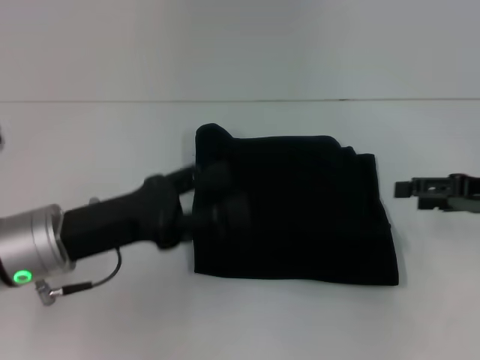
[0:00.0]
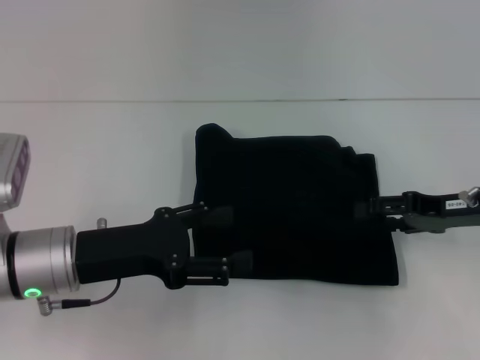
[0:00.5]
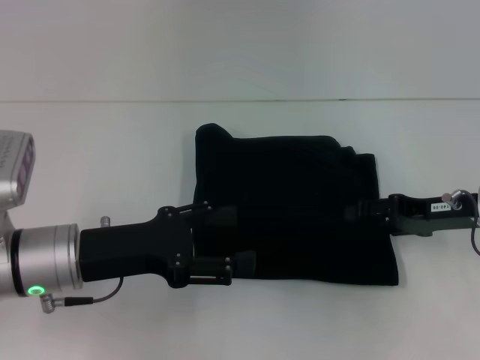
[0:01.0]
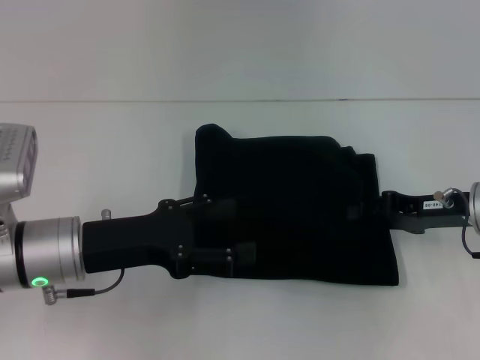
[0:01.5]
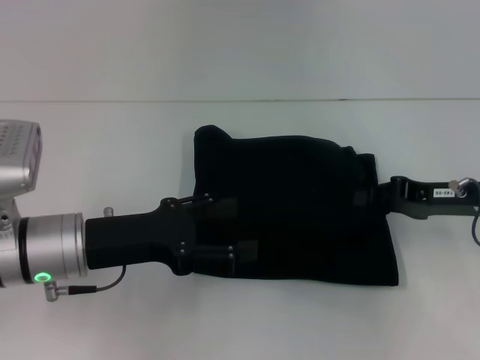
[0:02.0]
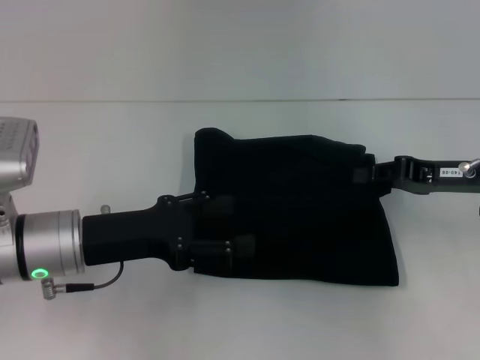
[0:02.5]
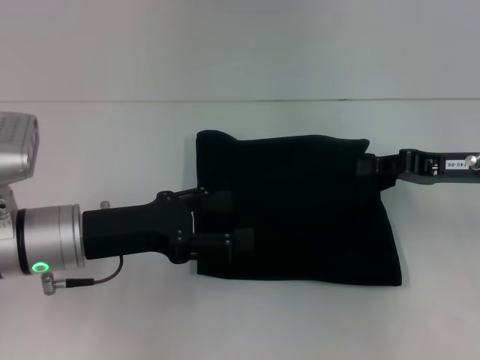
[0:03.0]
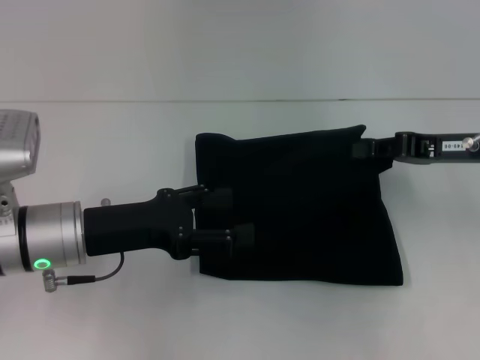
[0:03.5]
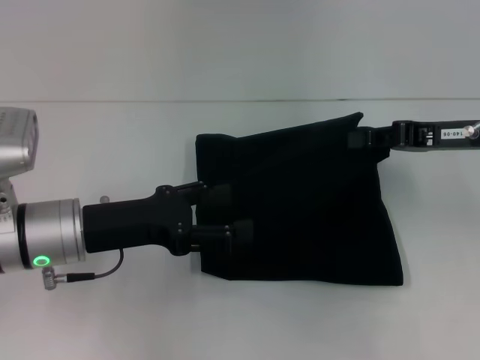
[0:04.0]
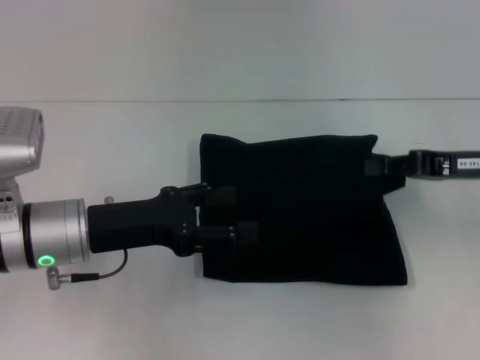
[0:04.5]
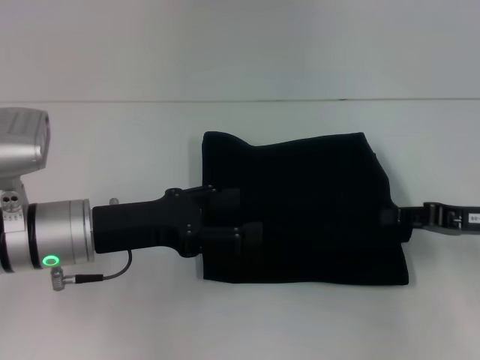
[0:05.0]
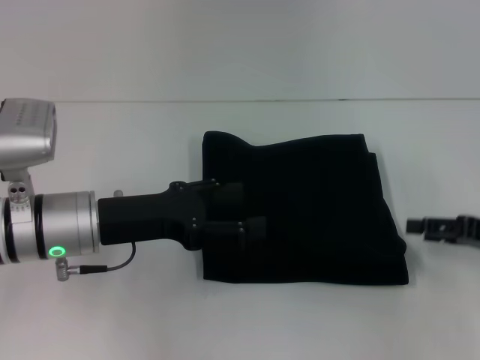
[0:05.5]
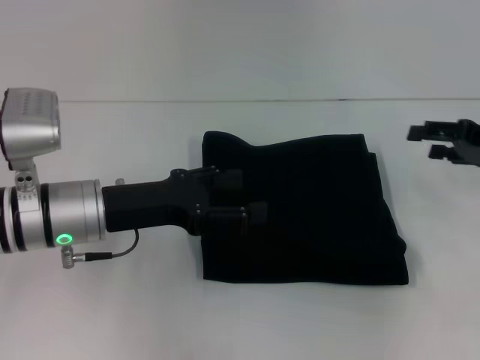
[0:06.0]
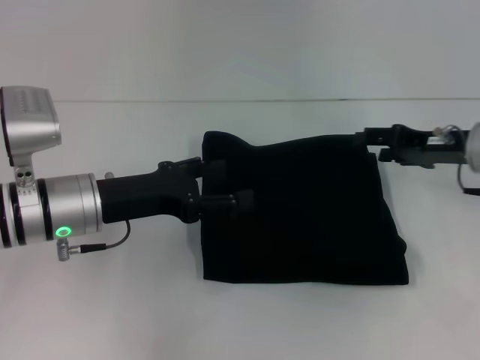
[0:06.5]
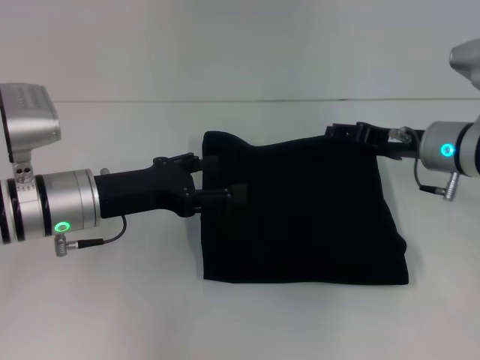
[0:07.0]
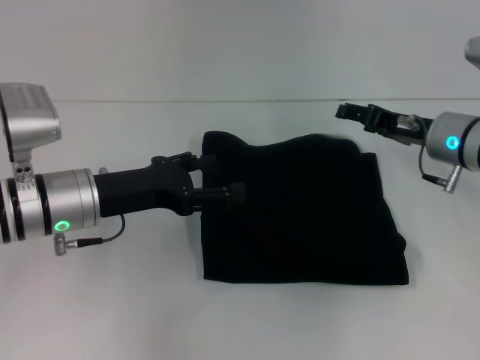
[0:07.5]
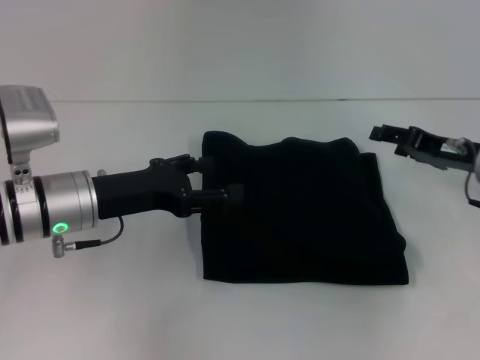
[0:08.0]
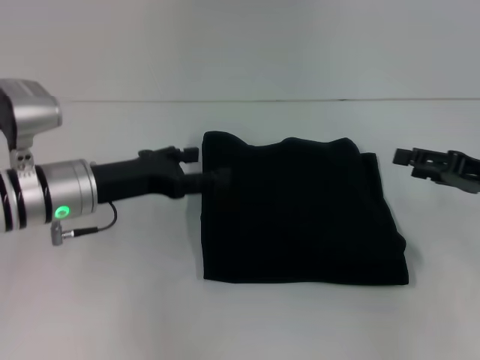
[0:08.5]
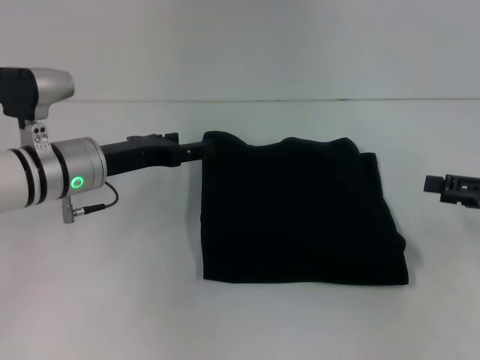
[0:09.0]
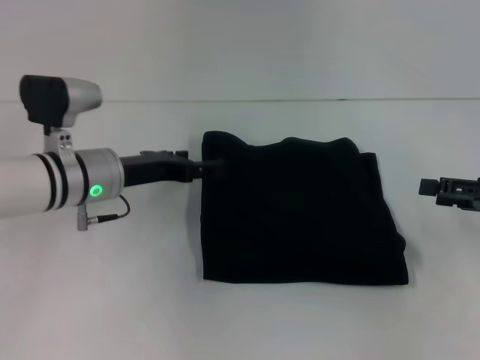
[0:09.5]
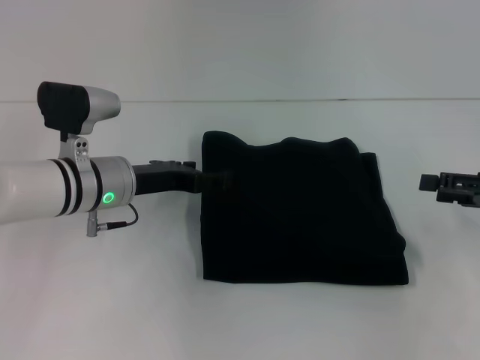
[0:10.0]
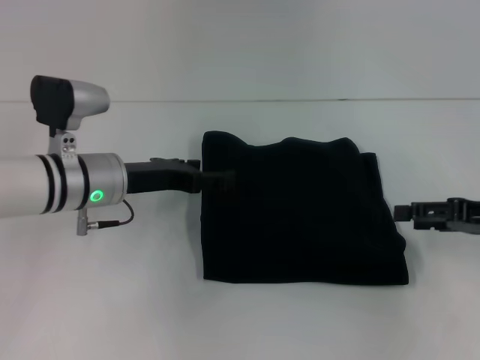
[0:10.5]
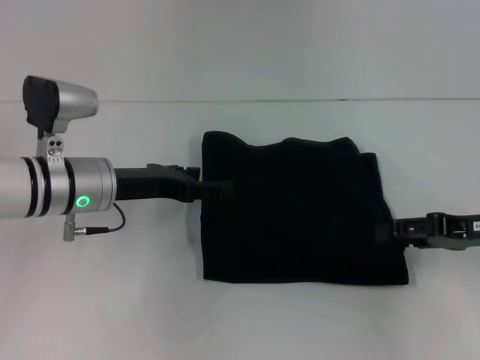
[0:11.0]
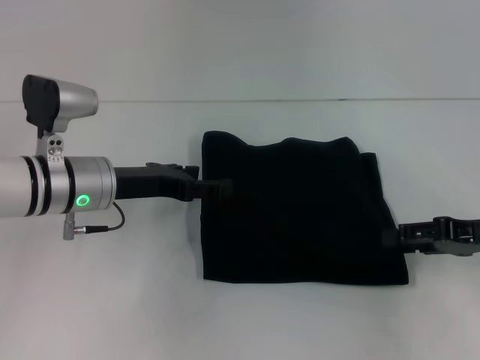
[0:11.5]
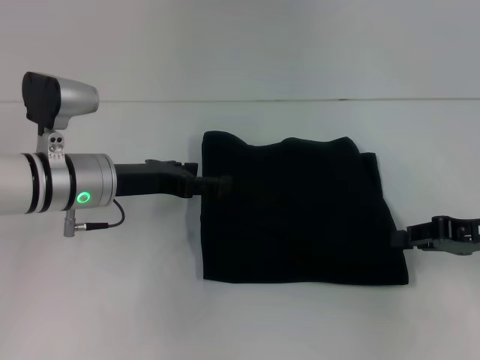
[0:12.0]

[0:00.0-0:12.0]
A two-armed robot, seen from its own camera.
0:00.0 to 0:02.0: The right gripper heads to the left, covering about 5 cm, and closes.
0:02.0 to 0:04.0: The right gripper is displaced upward by about 5 cm.
0:04.0 to 0:06.0: The right gripper goes roughly 5 cm to the right, and opens up.
0:06.0 to 0:08.0: The right gripper travels to the left by about 5 cm.
0:08.0 to 0:10.0: The left gripper moves about 5 cm; the right gripper is displaced to the right and backward by some 10 cm.
0:10.0 to 0:12.0: The right gripper closes.

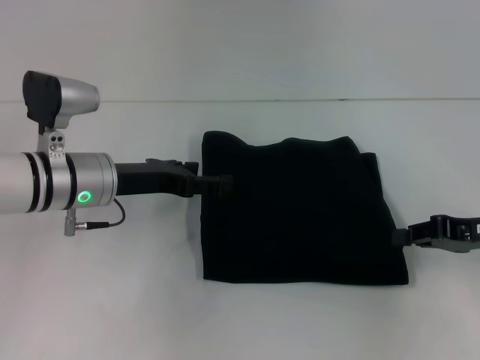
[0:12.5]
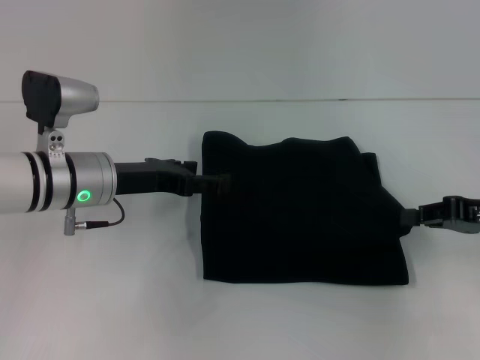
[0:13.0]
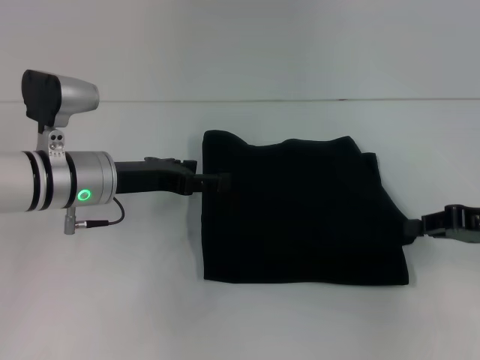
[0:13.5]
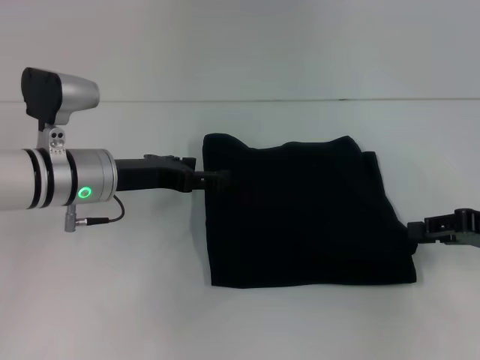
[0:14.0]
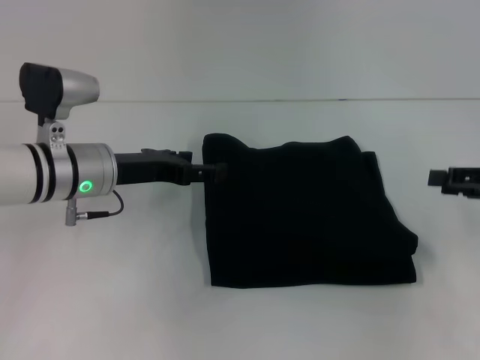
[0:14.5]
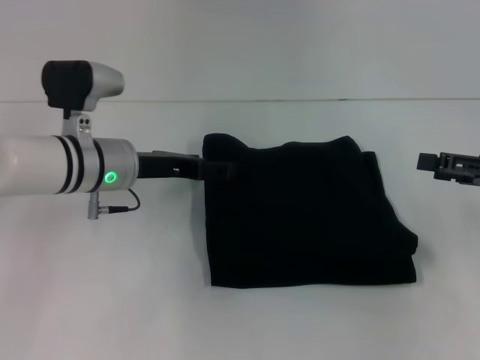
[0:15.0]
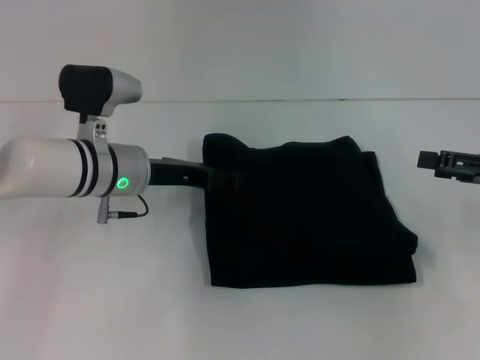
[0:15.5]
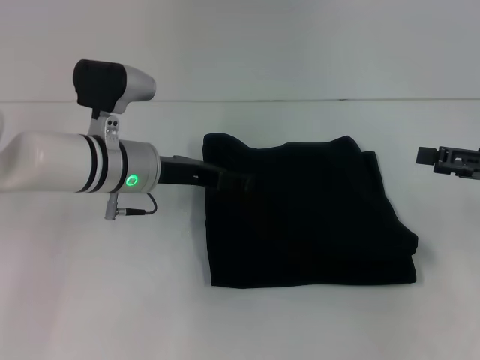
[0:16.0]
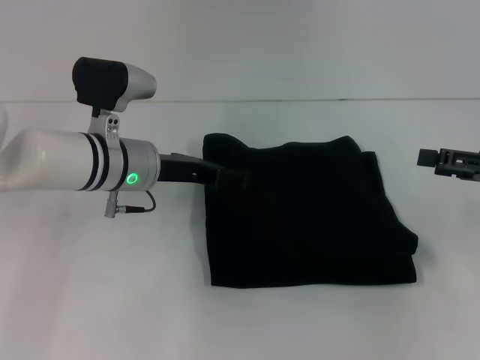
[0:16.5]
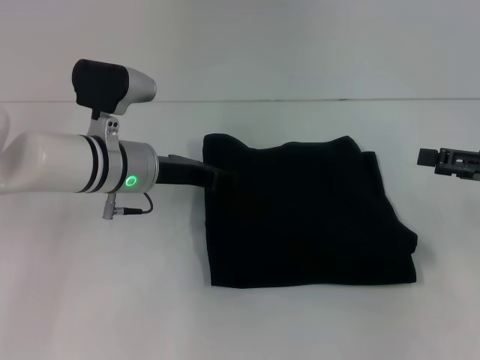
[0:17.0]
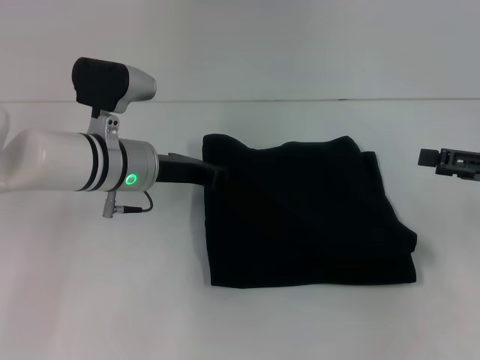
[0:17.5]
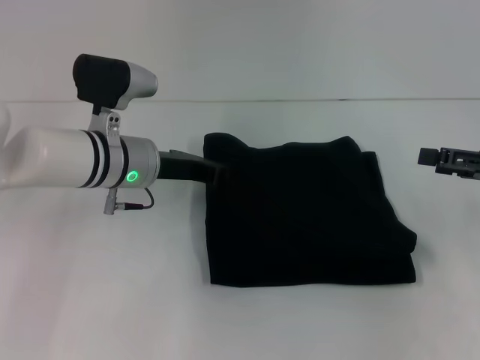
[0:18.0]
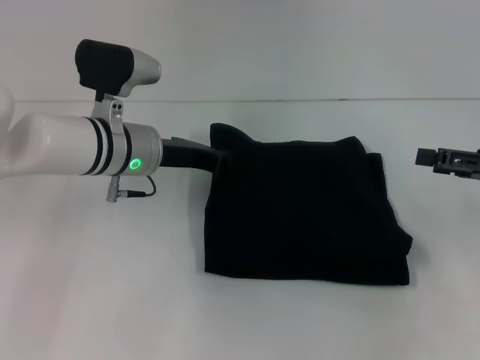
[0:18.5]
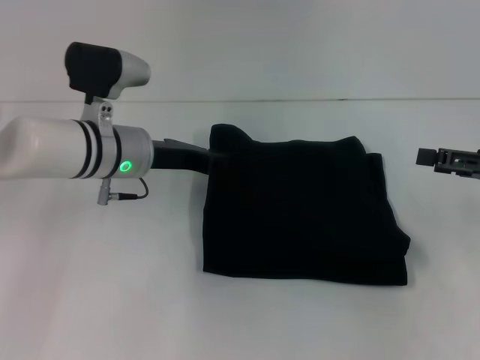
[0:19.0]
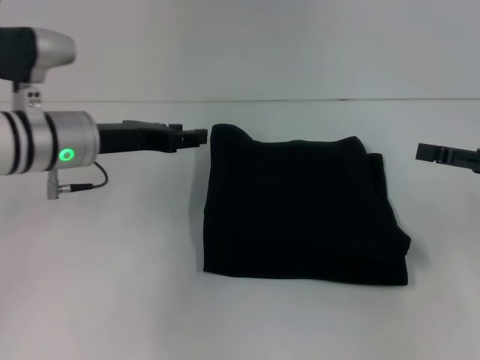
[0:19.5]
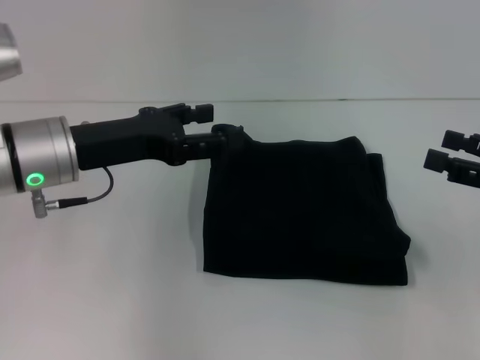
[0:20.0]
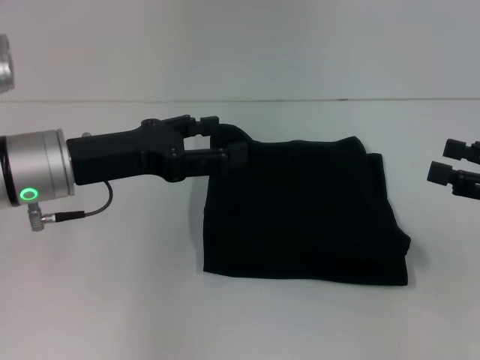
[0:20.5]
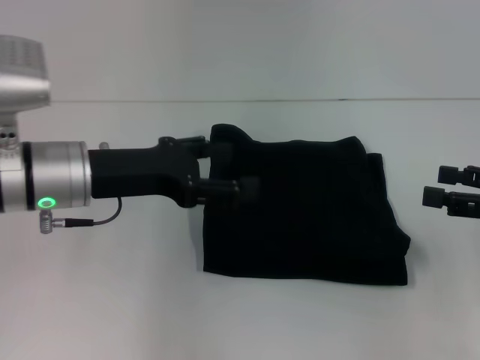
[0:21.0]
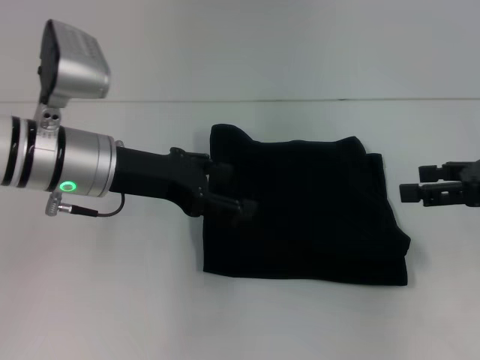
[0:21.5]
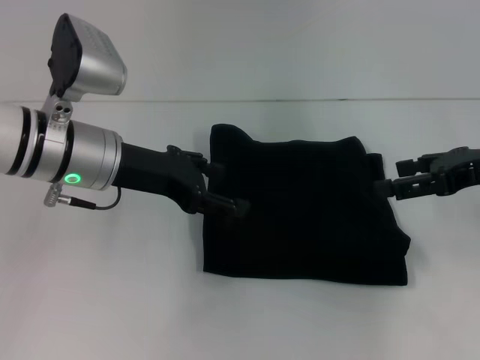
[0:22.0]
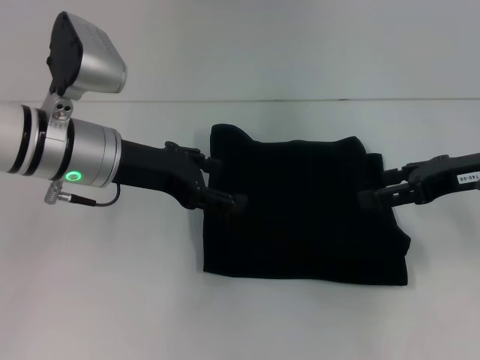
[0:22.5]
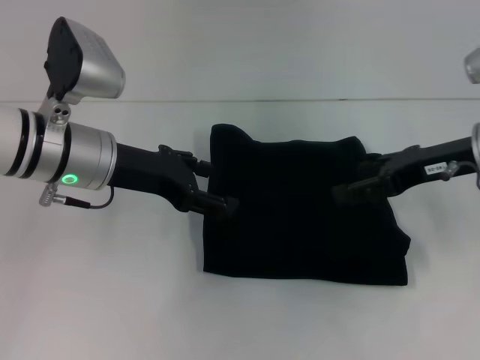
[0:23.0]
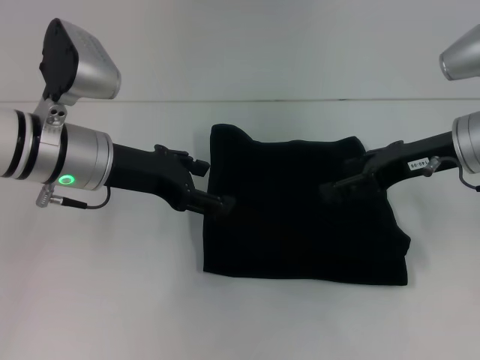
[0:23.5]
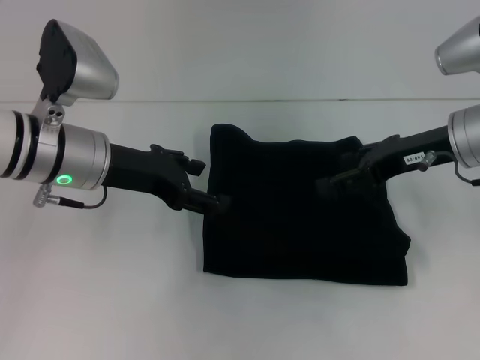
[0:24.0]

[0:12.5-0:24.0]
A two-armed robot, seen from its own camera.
0:12.5 to 0:14.5: The right gripper moves approximately 5 cm, and opens.
0:14.5 to 0:16.5: The grippers make only small movements.
0:16.5 to 0:18.5: The left gripper closes its fingers.
0:18.5 to 0:20.0: The left gripper travels backward, to the left and upward by about 10 cm, and opens its fingers.
0:20.0 to 0:22.0: The right gripper is displaced forward by some 5 cm.
0:22.0 to 0:24.0: The right gripper is displaced to the left by some 5 cm.

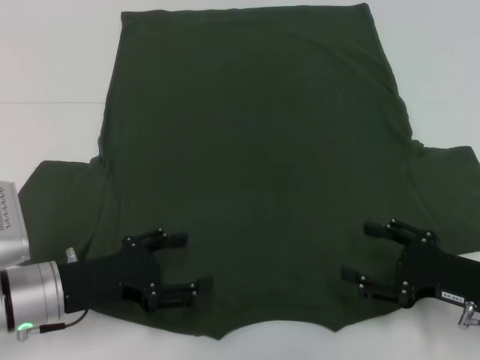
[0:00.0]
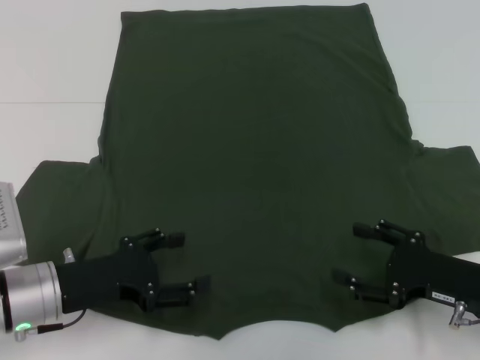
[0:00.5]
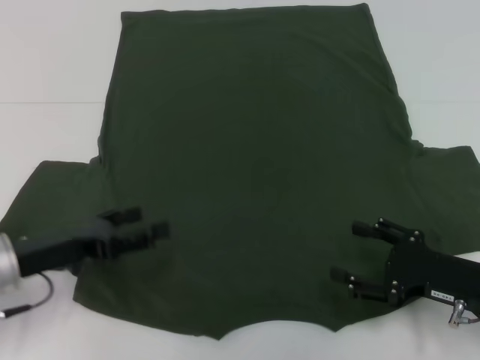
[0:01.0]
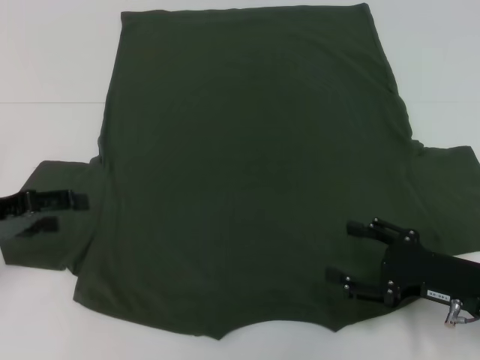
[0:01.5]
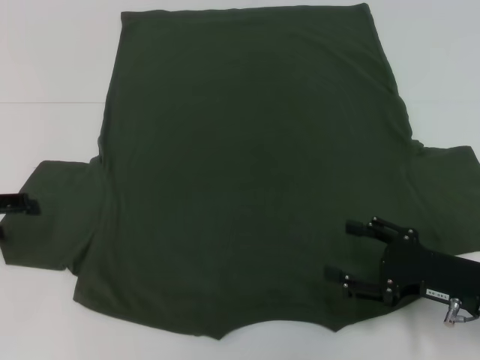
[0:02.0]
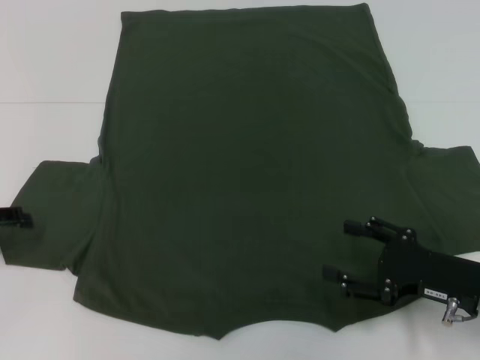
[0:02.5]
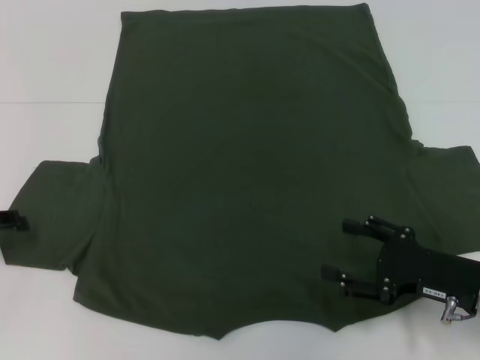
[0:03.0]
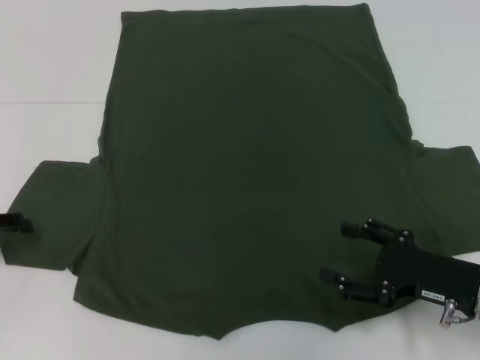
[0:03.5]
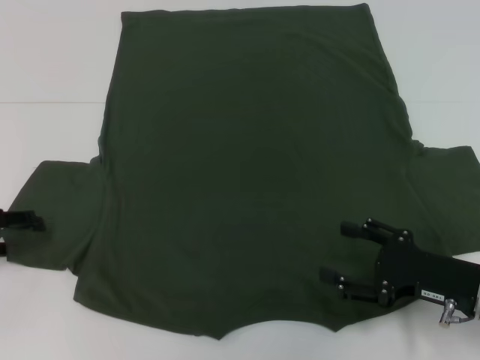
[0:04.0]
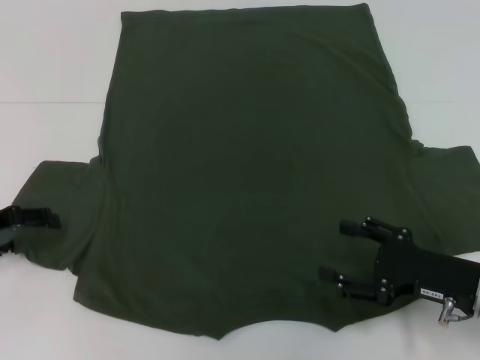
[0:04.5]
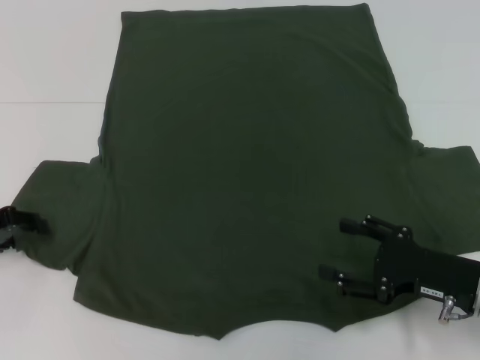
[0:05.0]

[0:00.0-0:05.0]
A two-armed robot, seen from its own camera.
0:00.0 to 0:02.5: The left gripper shifts some 15 cm to the left.
0:02.5 to 0:05.0: The grippers make only small movements.
